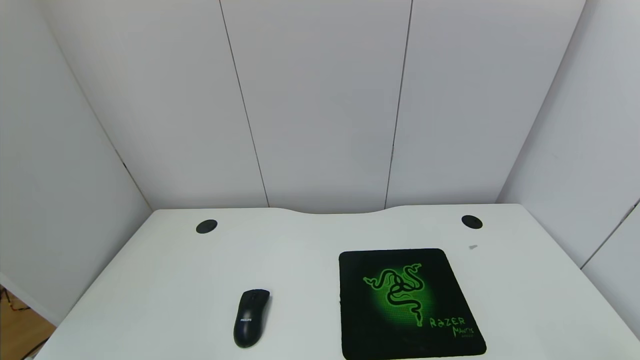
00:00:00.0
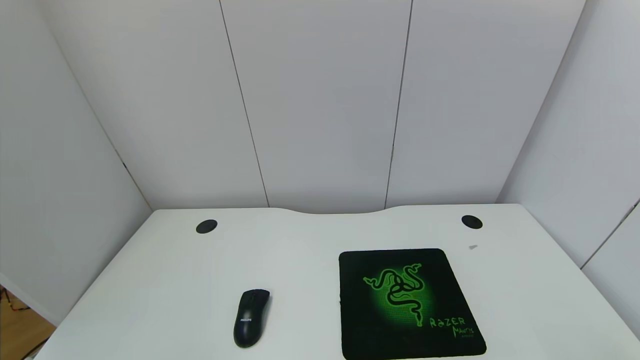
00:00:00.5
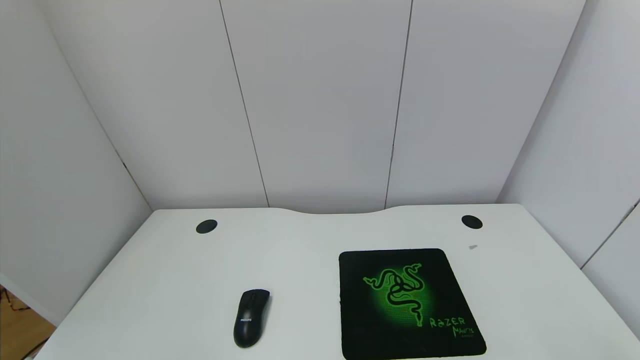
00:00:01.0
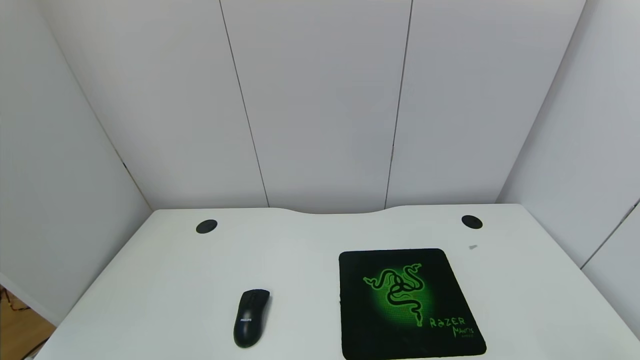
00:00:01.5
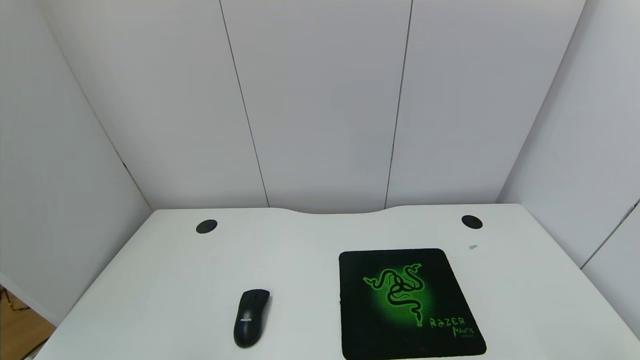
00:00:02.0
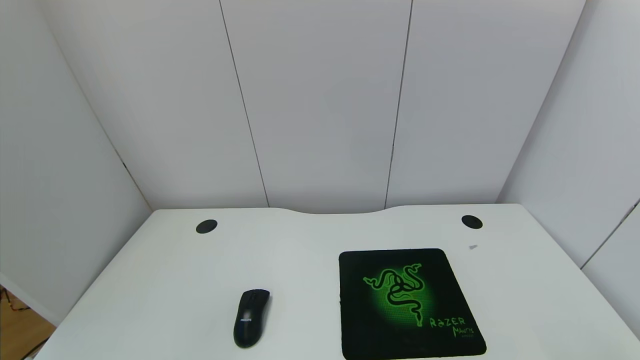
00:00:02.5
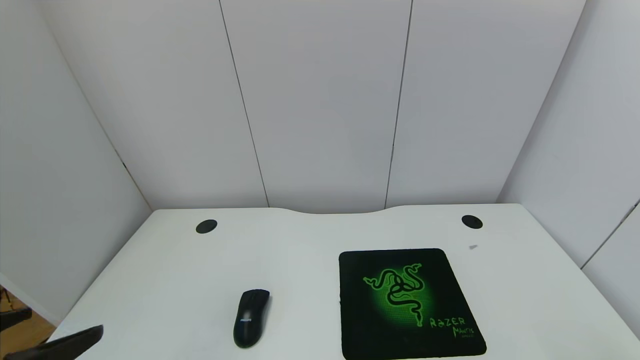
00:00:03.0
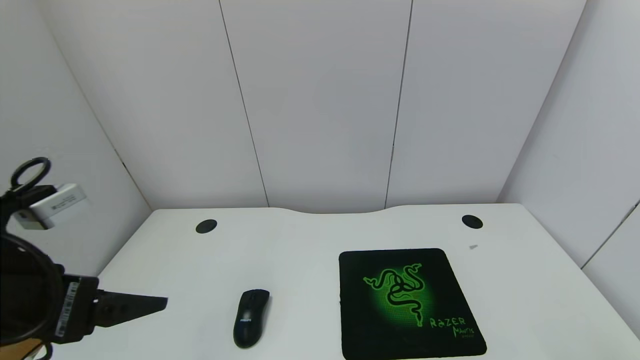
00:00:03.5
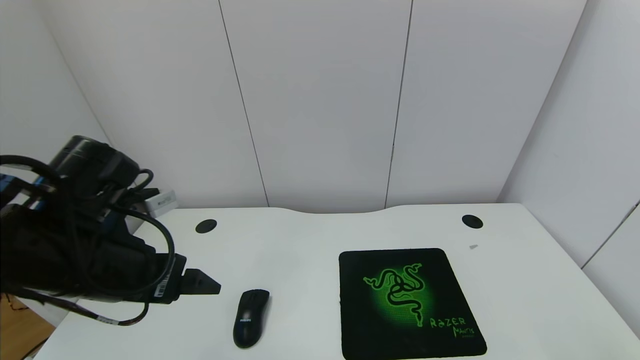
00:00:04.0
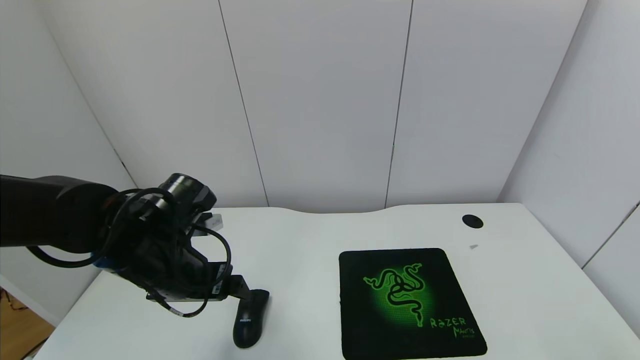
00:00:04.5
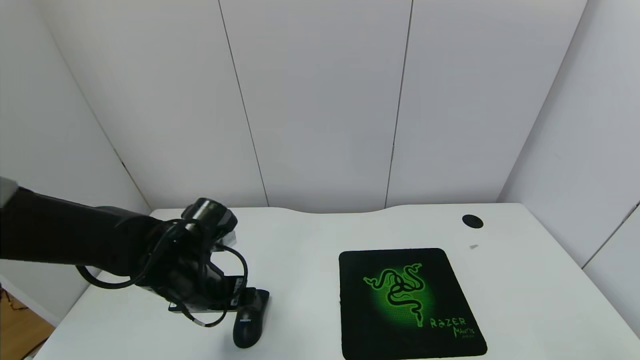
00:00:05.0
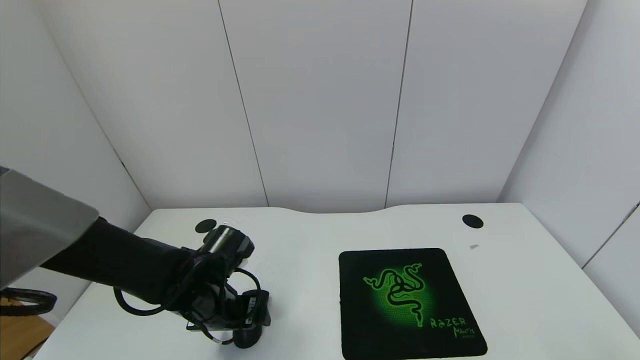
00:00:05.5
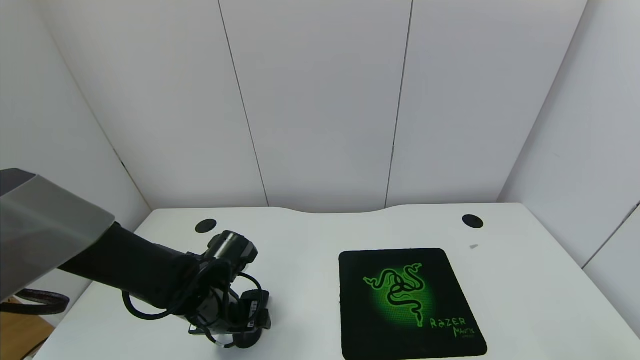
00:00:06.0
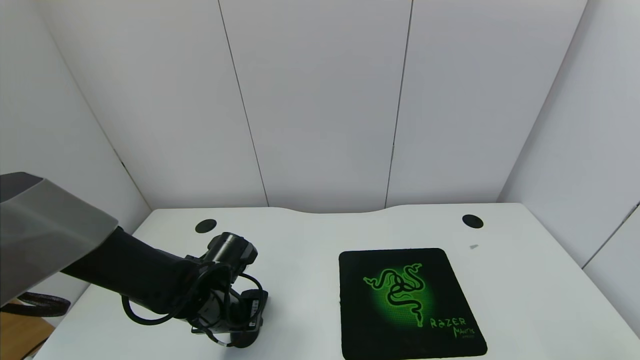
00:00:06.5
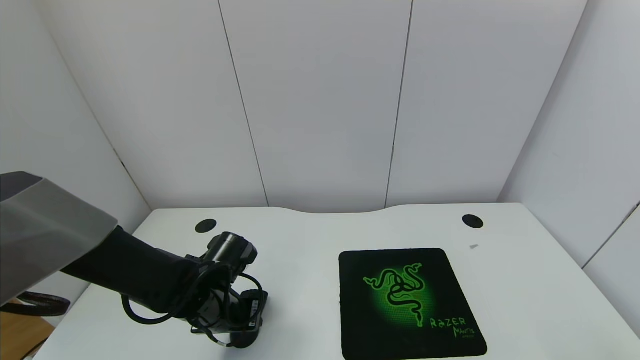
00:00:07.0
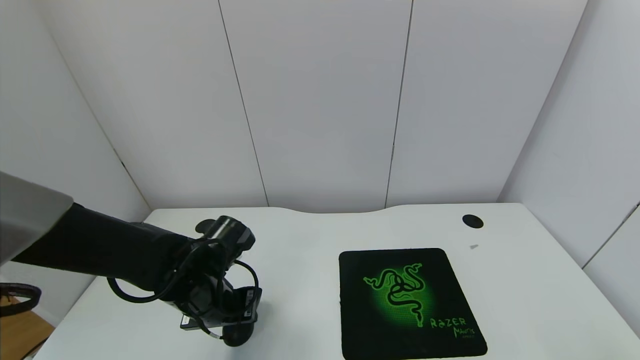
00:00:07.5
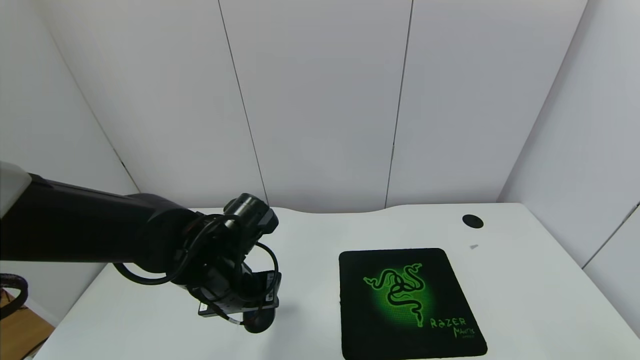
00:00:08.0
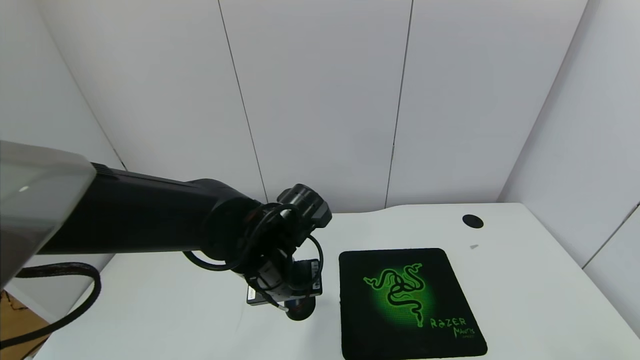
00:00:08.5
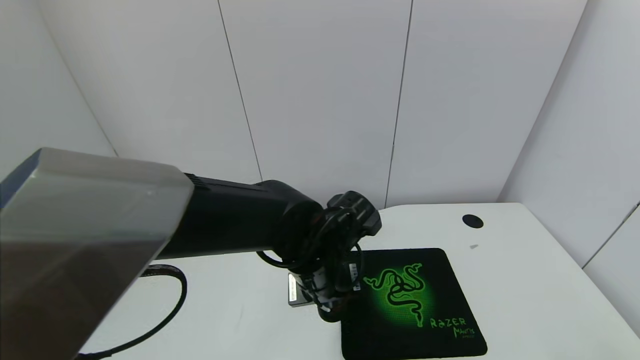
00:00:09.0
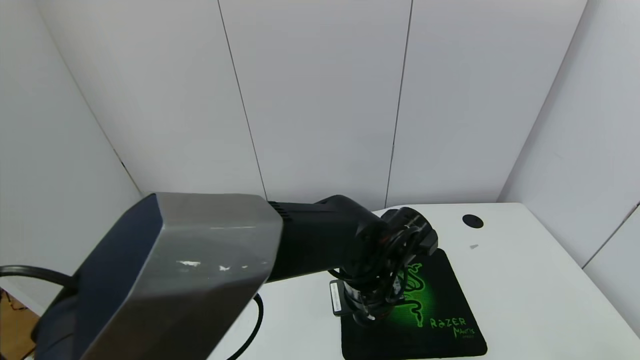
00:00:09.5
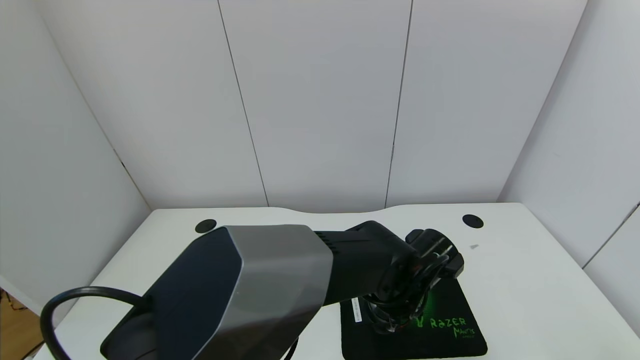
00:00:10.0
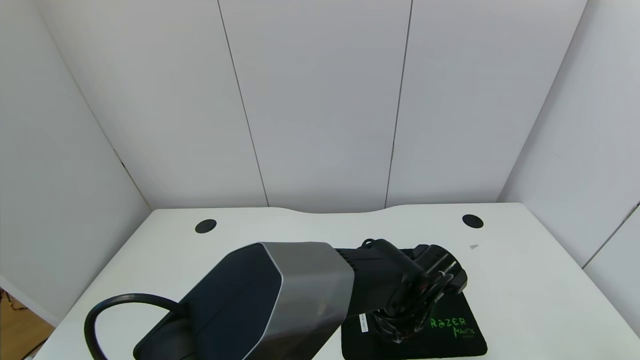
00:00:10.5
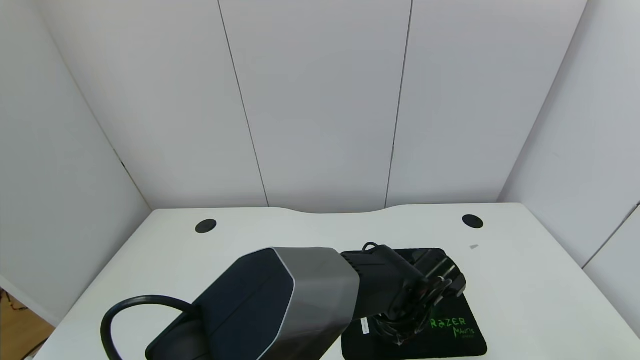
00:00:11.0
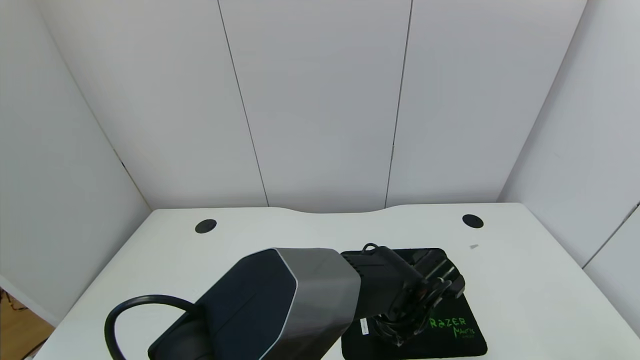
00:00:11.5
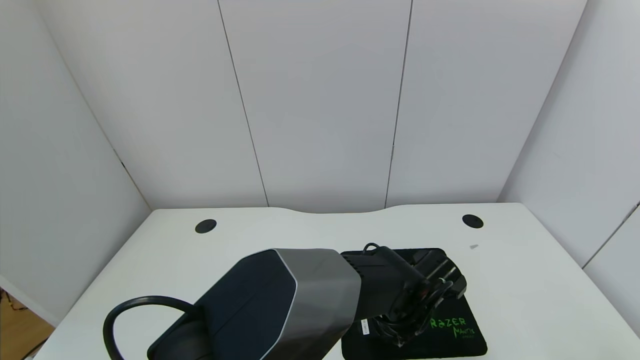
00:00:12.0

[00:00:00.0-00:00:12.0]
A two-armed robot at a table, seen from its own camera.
Task of the whole recording: use the gripper to move the mouse from one side of the table to the mouse pad on the opposite side.
Step, 00:00:00.0 to 00:00:06.5: Grasp the mouse with the left gripper.
00:00:02.0 to 00:00:04.0: The left gripper moves forward, some 25 cm.
00:00:04.0 to 00:00:06.0: The left gripper travels downward and forward by some 20 cm.
00:00:06.0 to 00:00:08.0: The left gripper is displaced upward by roughly 10 cm, and closes its fingers.
00:00:08.0 to 00:00:10.0: The left gripper goes roughly 20 cm to the right.
00:00:10.0 to 00:00:12.0: The left gripper opens up.

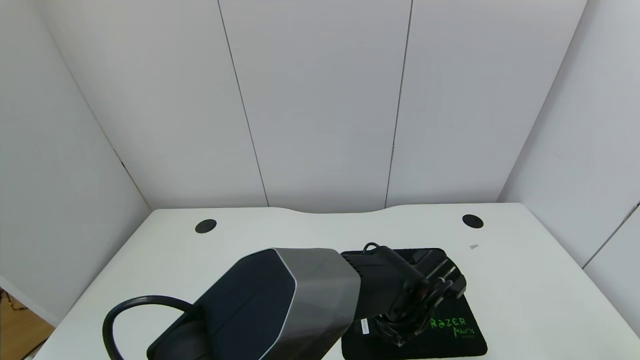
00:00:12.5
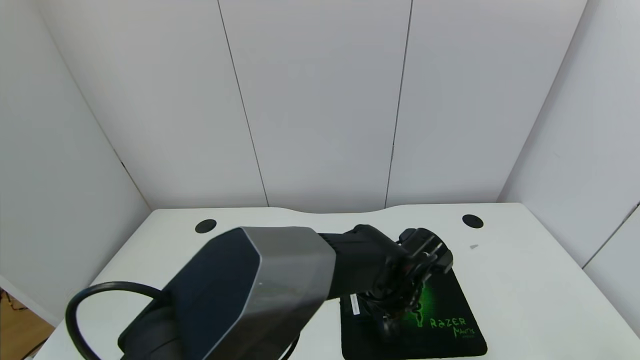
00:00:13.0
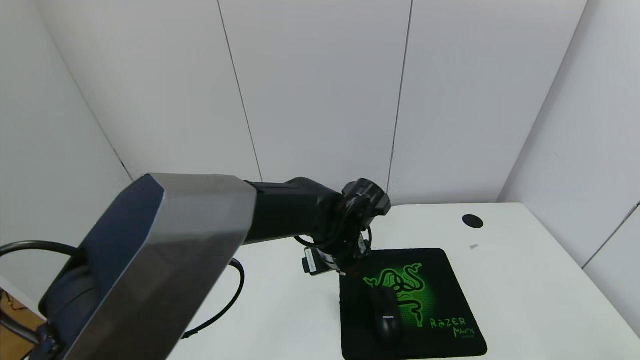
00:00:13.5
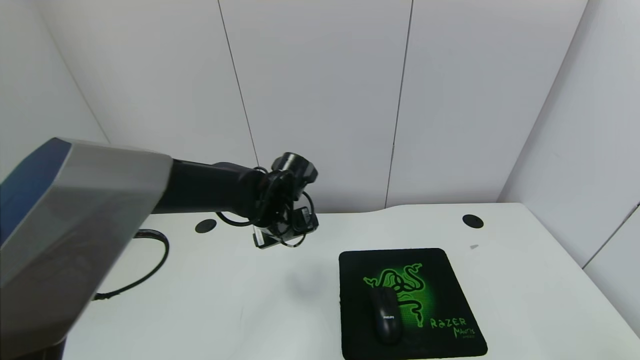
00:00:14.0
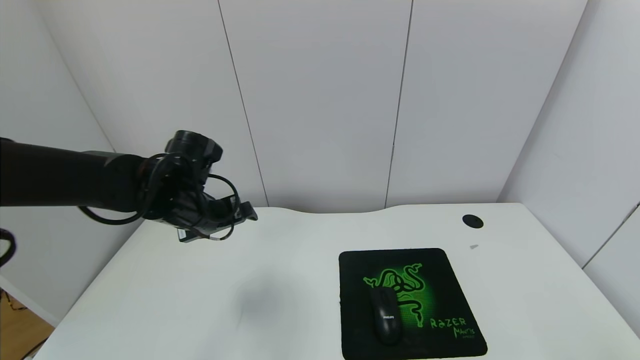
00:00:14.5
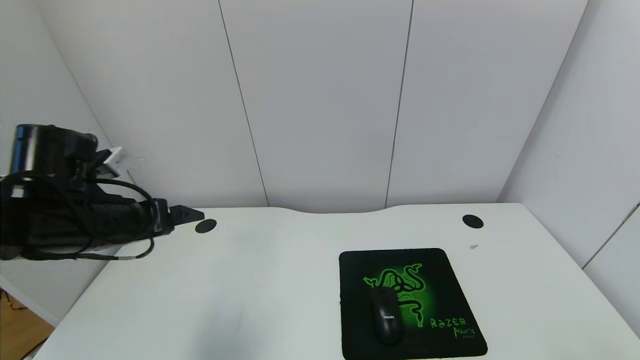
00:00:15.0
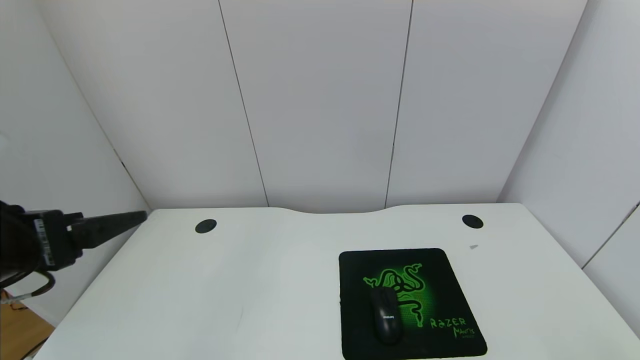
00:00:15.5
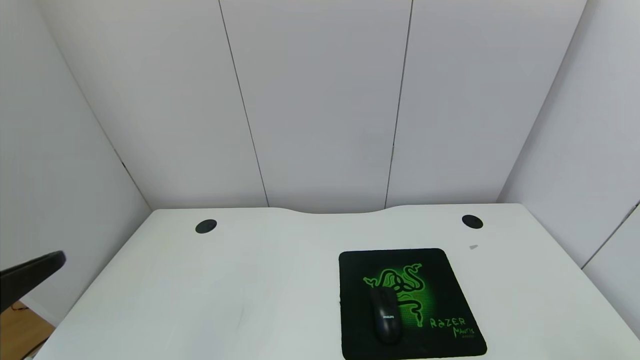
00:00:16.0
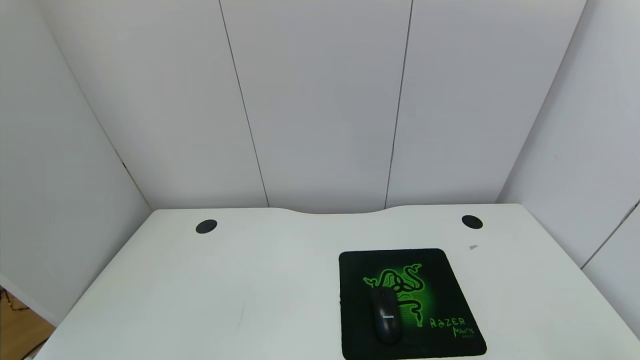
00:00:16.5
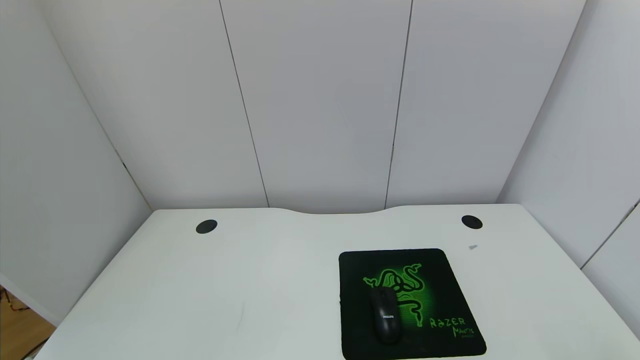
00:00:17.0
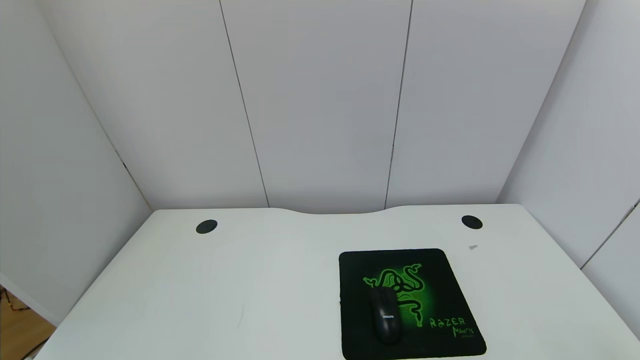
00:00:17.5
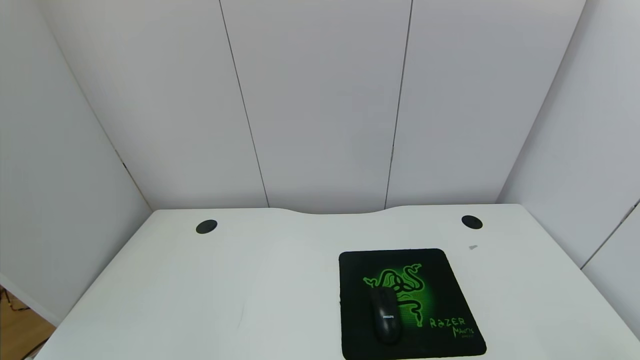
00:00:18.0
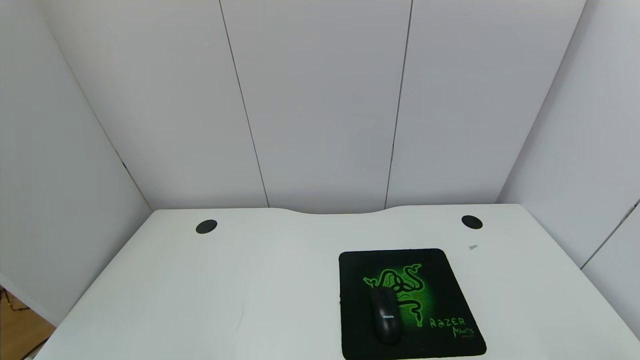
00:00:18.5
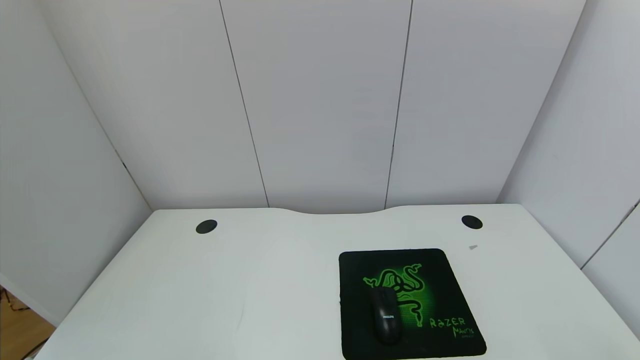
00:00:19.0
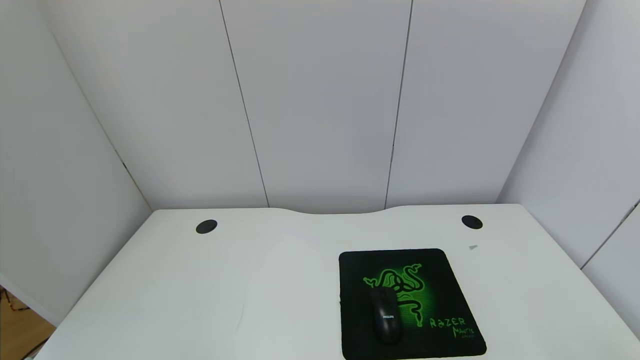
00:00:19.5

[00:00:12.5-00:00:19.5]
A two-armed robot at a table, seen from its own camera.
Task of the whole recording: use the gripper to move the mouse from one side of the table to the mouse pad on the opposite side.
00:00:12.5 to 00:00:14.5: The left gripper heads to the left and upward, covering about 35 cm.
00:00:14.5 to 00:00:16.0: The left gripper shifts approximately 30 cm backward.
00:00:16.0 to 00:00:17.5: The left gripper is displaced backward by some 15 cm.
